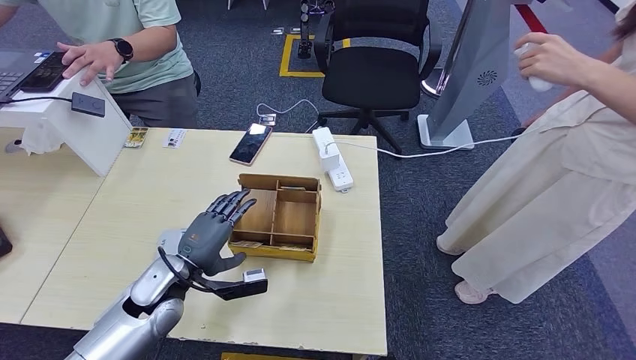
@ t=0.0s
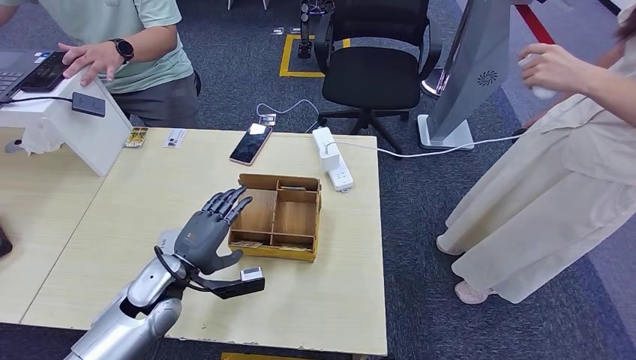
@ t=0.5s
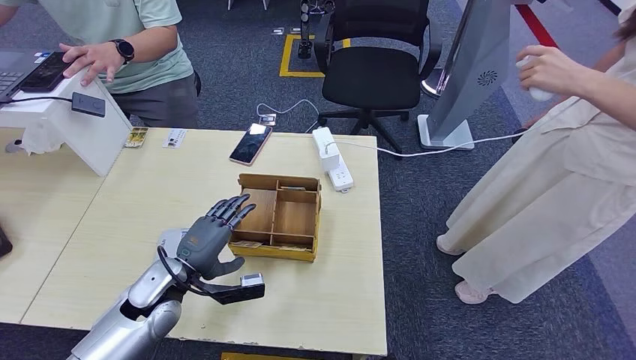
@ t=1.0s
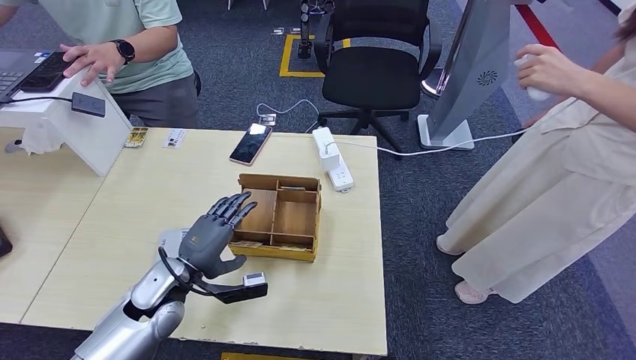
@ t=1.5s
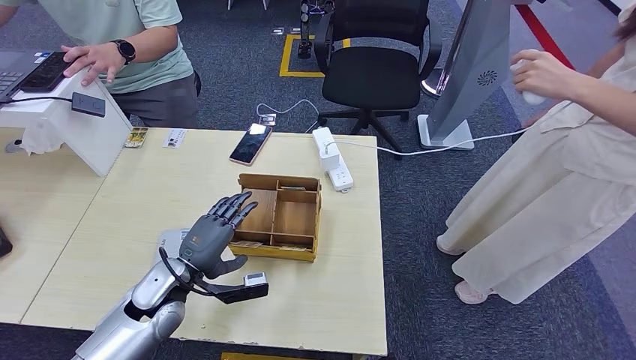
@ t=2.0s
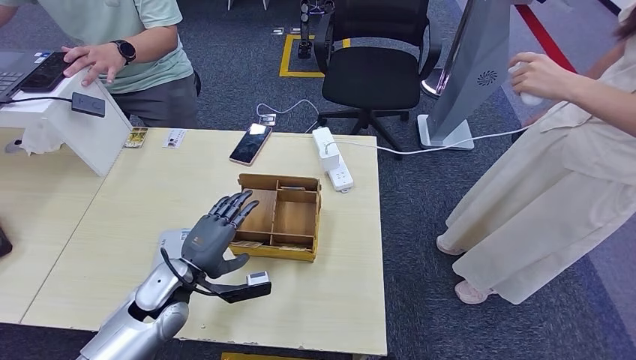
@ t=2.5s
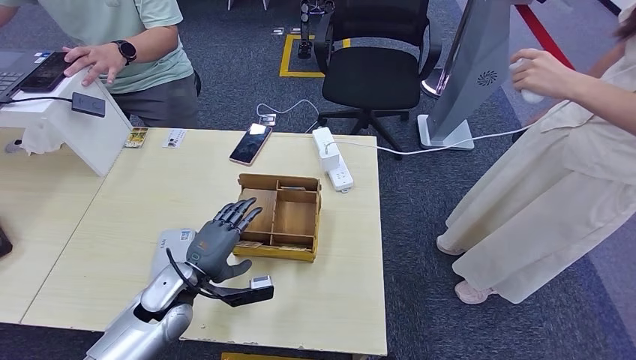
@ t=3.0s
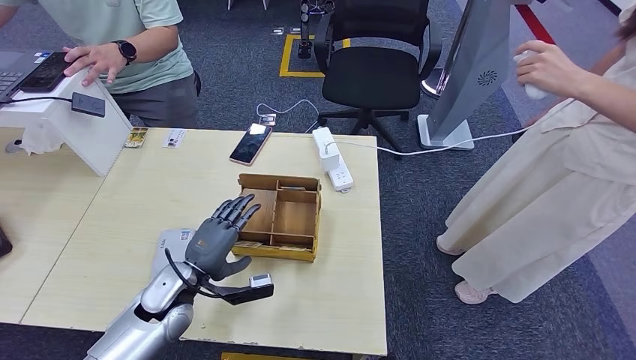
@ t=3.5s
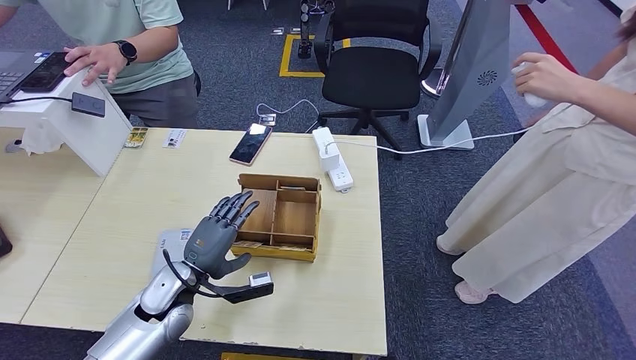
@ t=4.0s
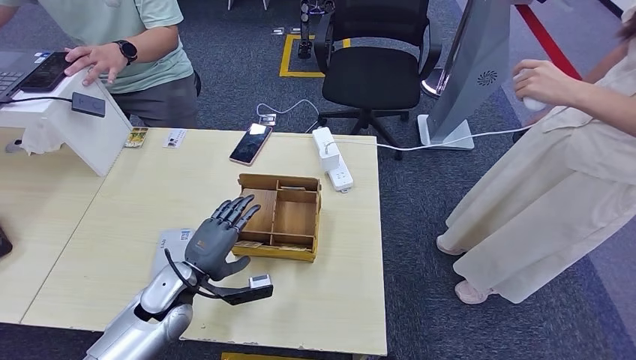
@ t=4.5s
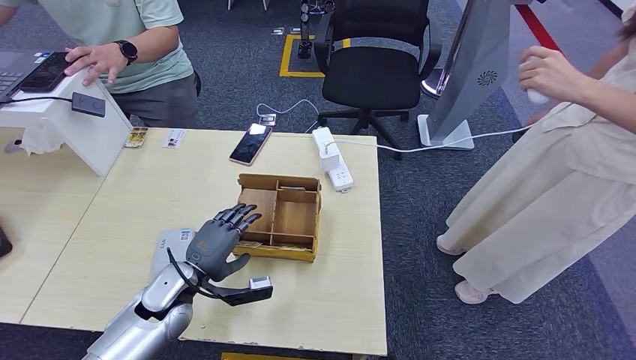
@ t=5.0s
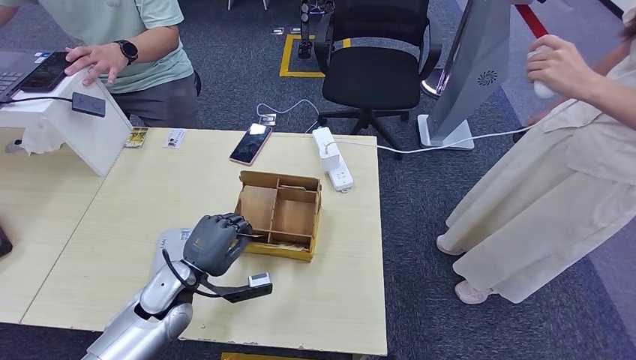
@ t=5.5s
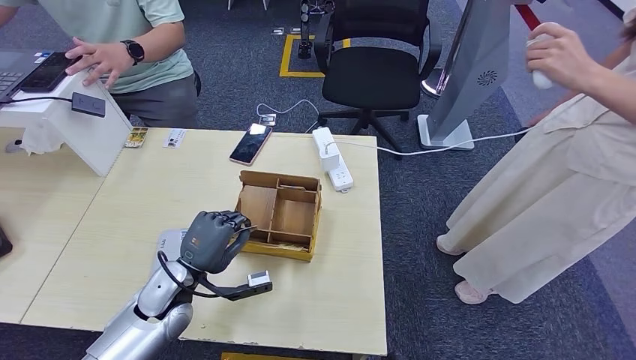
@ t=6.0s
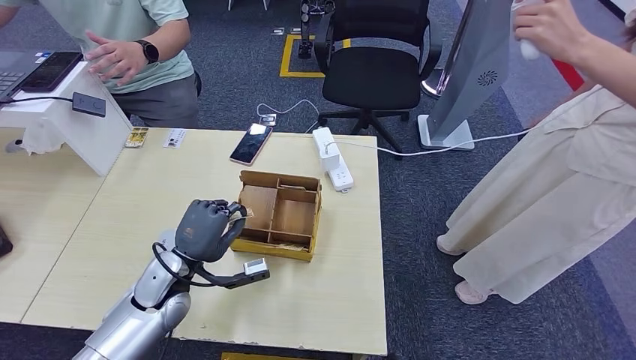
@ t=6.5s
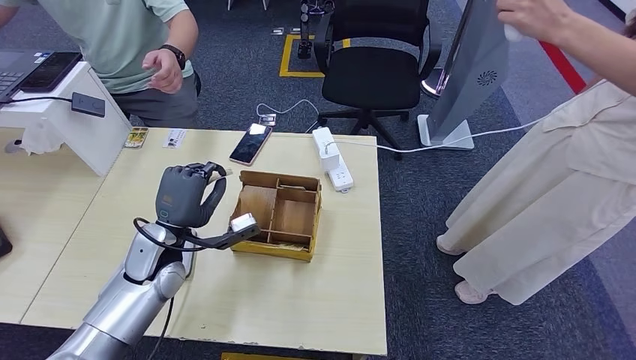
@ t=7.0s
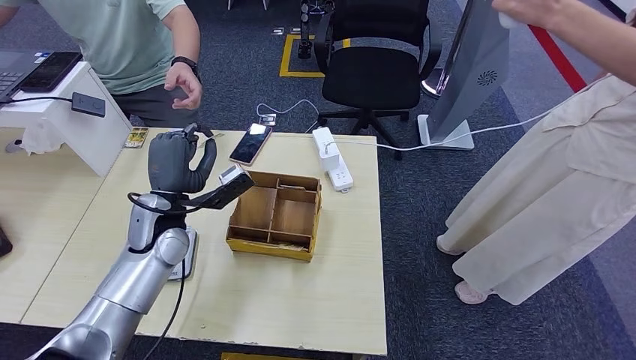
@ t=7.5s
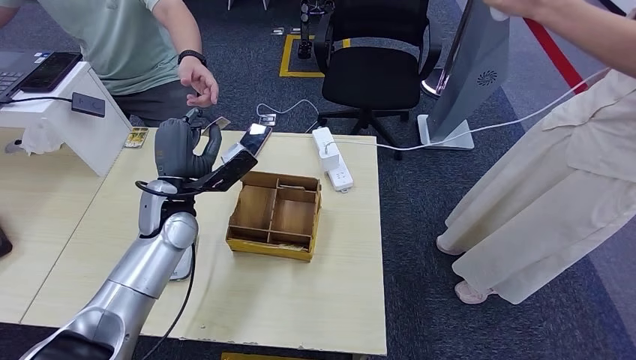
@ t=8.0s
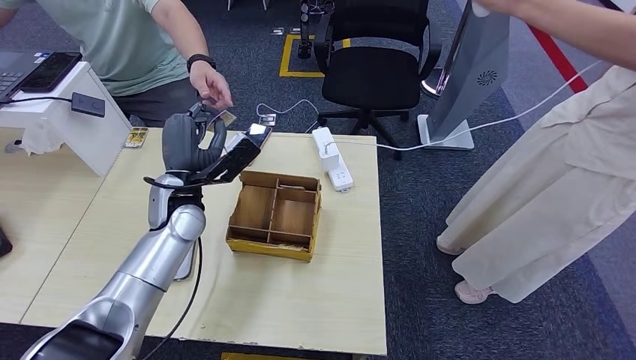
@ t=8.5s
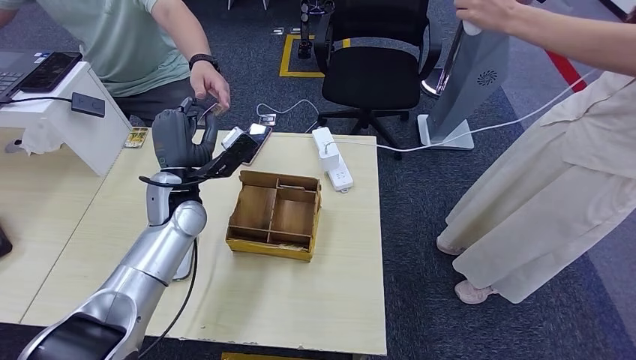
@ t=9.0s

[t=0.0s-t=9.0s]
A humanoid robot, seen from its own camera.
Step, t=0.0s to t=6.0s: Pick up the room key from the key card box.
Step, t=7.0s to t=9.0s: Hand the room key to the person.
t=0.0s to t=2.0s: The two hands keep their place.
t=2.0s to t=4.5s: The hands make only small movements.
t=4.5s to t=7.0s: The left hand shifts some 5 cm upward.
t=7.0s to t=9.0s: The left hand shifts roughly 10 cm forward and upward.
